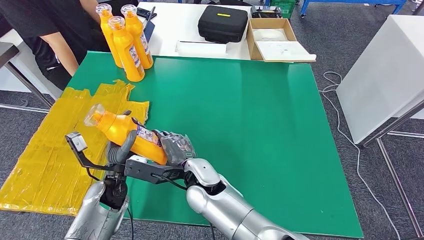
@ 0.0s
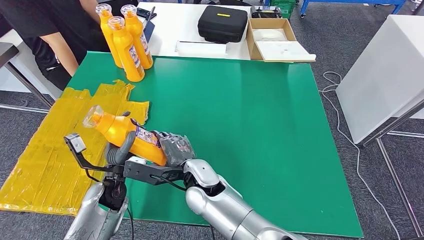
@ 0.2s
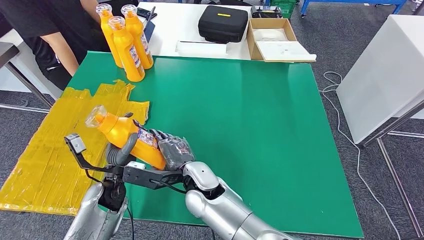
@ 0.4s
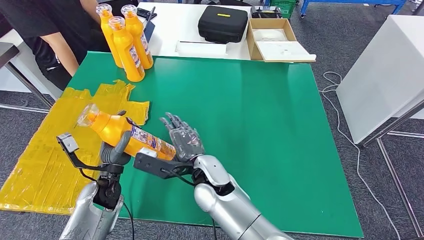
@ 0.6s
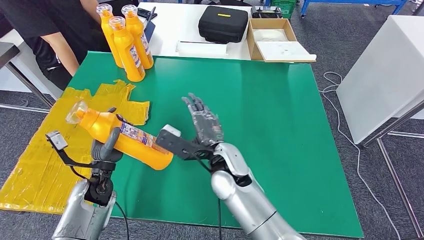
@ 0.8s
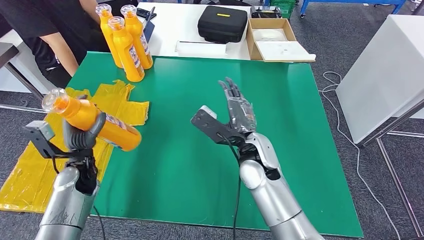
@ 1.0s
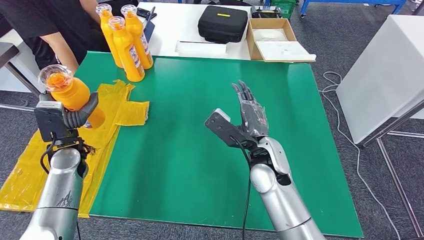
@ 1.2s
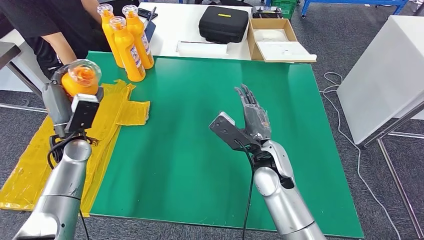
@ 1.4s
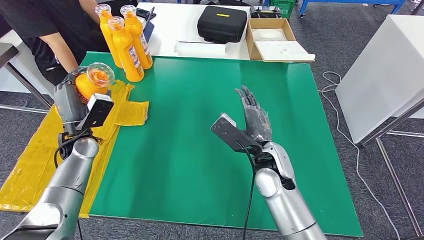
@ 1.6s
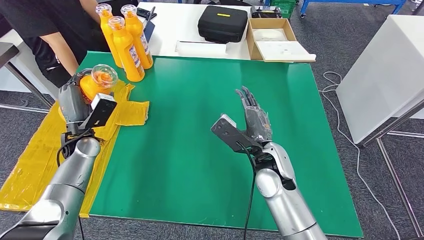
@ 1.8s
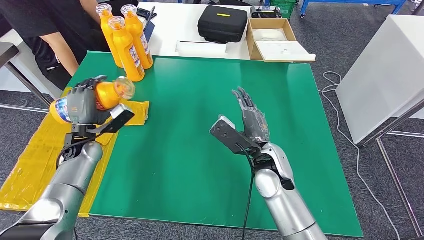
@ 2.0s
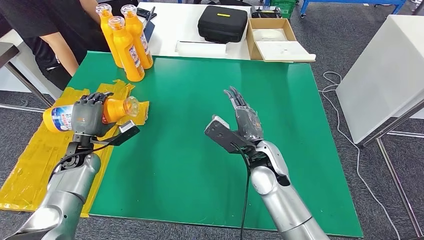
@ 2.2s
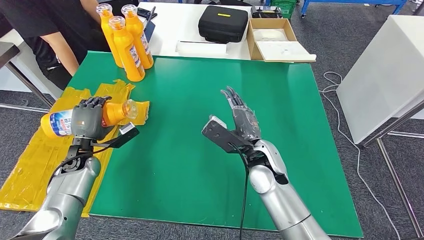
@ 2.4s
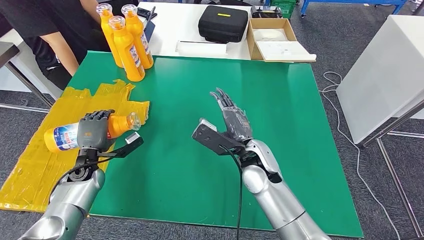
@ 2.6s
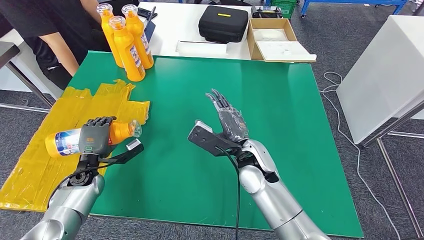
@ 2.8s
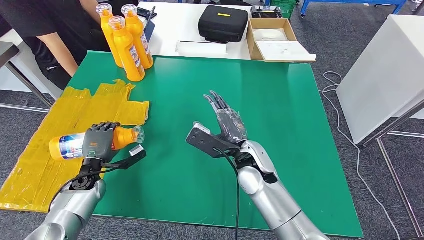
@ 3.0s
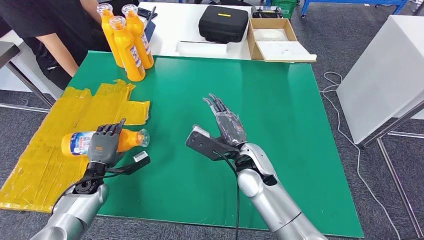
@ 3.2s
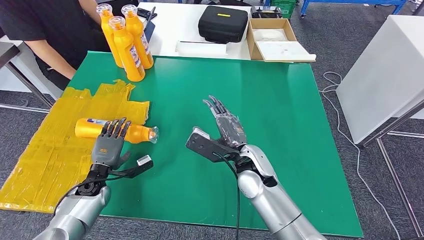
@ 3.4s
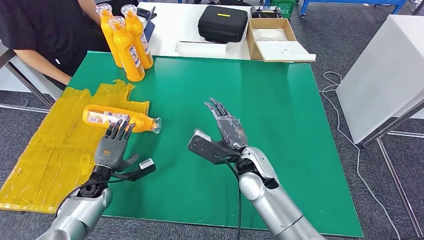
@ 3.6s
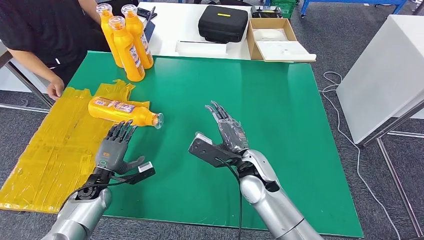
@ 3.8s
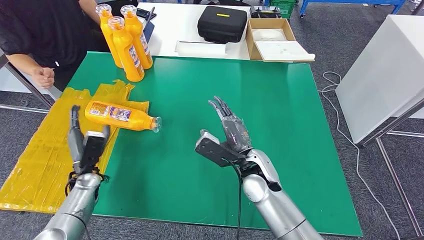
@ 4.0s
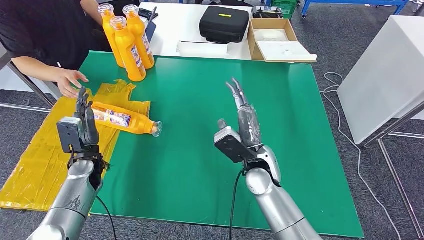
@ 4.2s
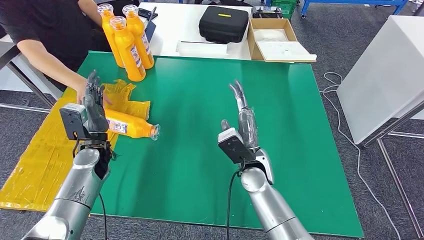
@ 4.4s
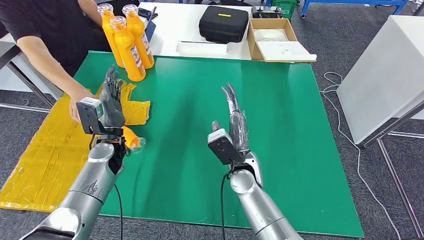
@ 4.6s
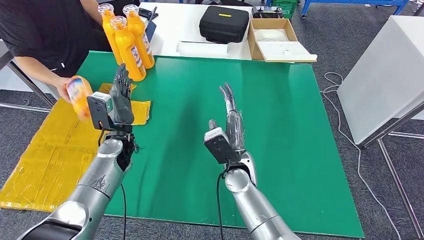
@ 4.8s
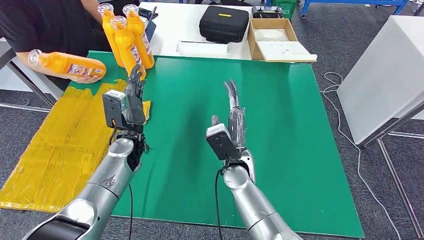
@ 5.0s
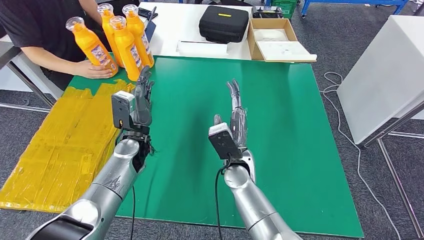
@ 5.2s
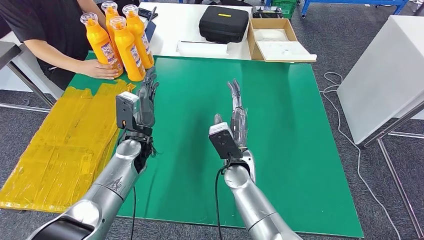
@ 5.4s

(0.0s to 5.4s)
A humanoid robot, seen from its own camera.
Step, 0.4s - 5.4s: Flip the fast-moving consumer goods bottle to the front side.
1.4s - 2.8s: The left hand travels downward by about 10 cm.
